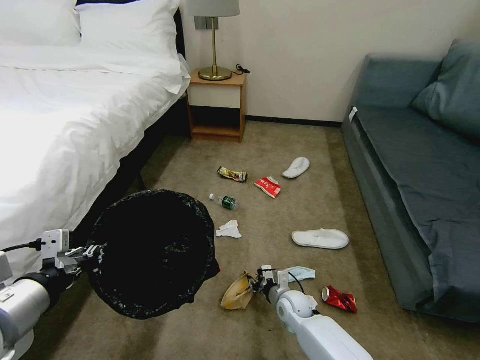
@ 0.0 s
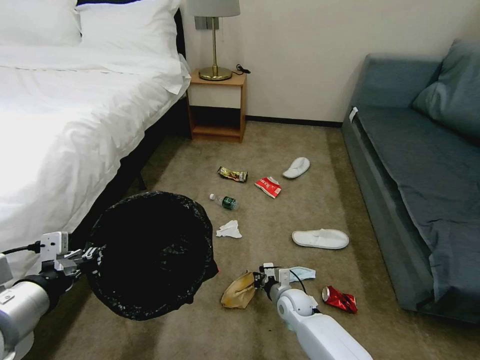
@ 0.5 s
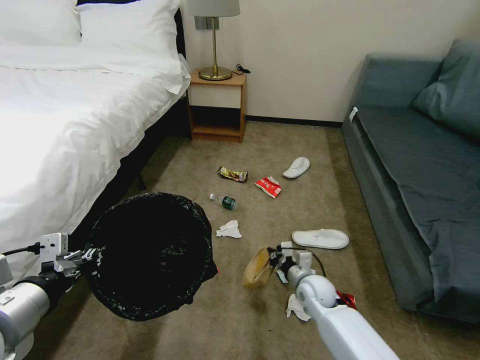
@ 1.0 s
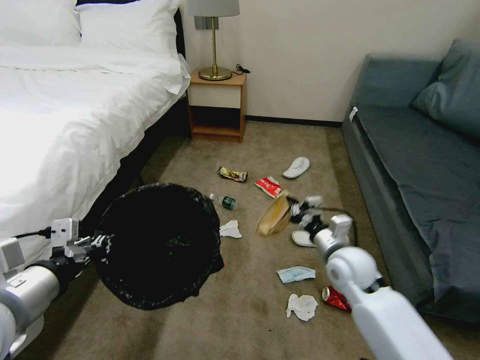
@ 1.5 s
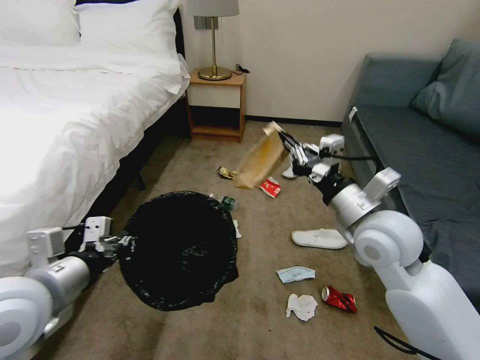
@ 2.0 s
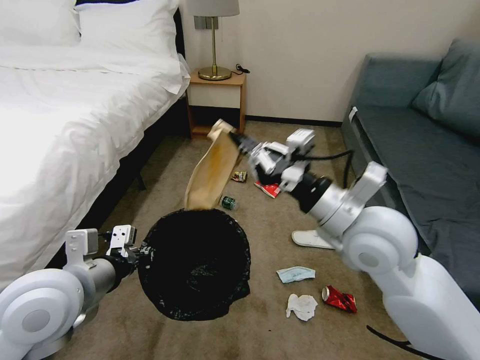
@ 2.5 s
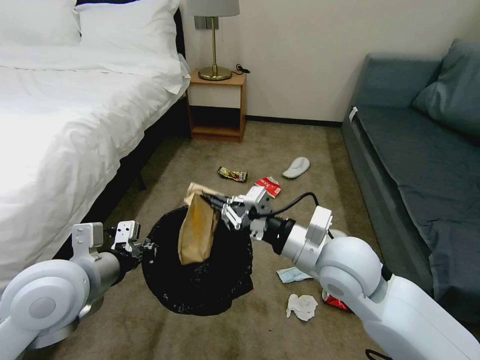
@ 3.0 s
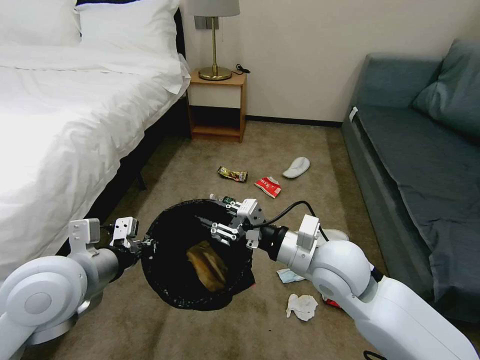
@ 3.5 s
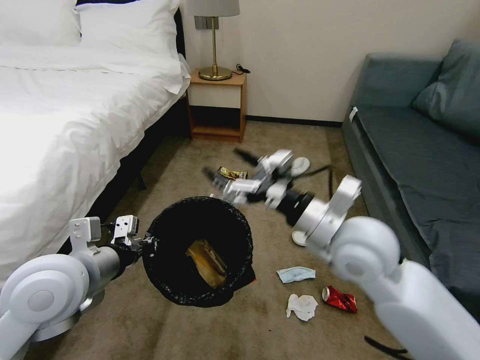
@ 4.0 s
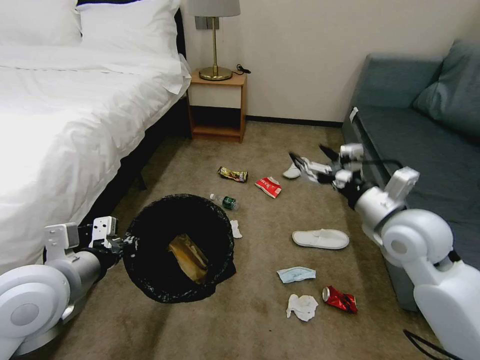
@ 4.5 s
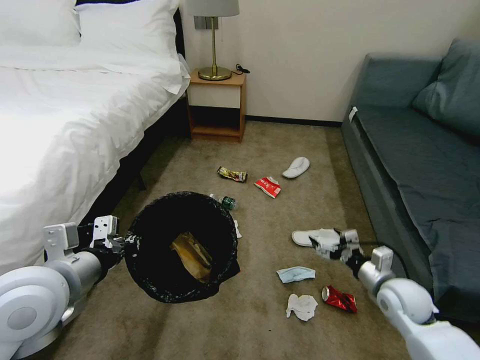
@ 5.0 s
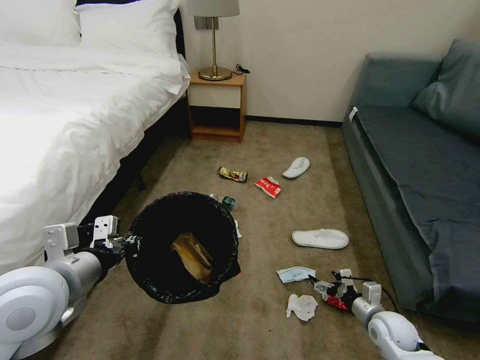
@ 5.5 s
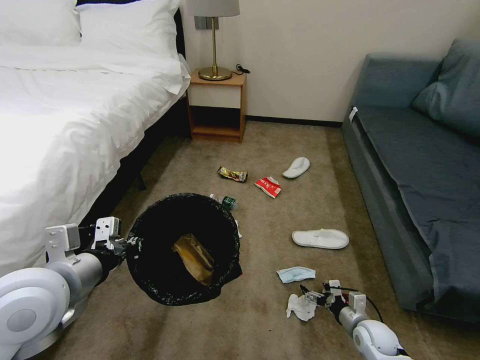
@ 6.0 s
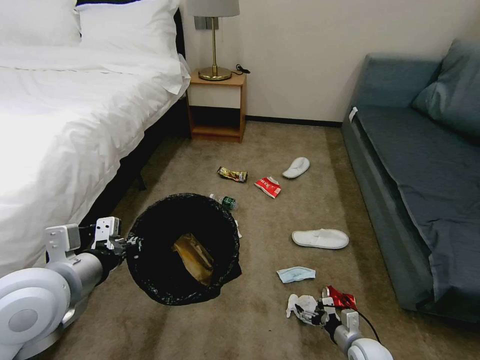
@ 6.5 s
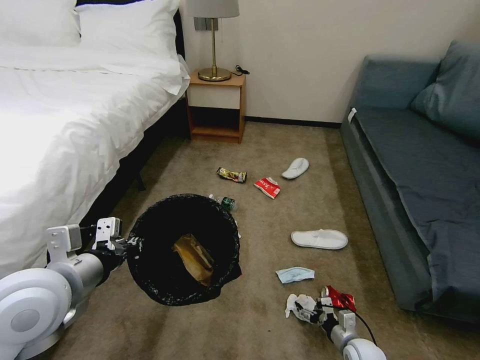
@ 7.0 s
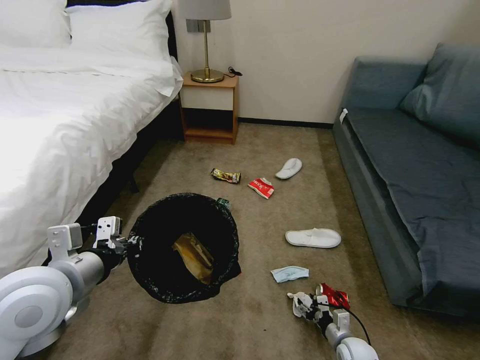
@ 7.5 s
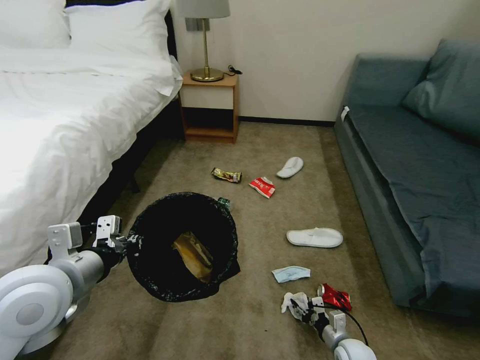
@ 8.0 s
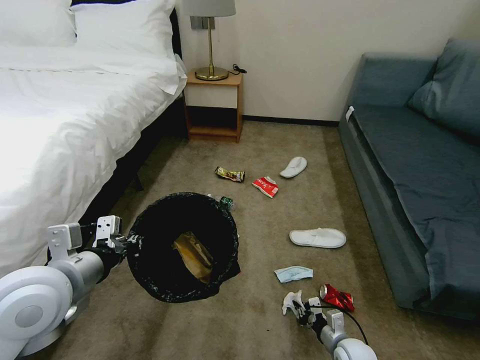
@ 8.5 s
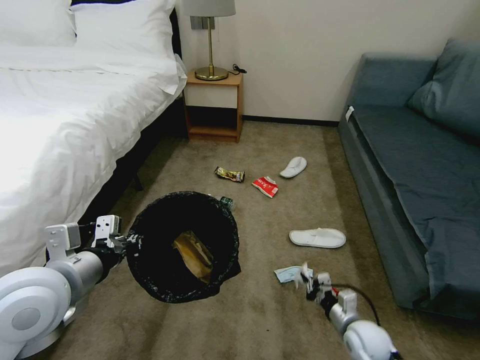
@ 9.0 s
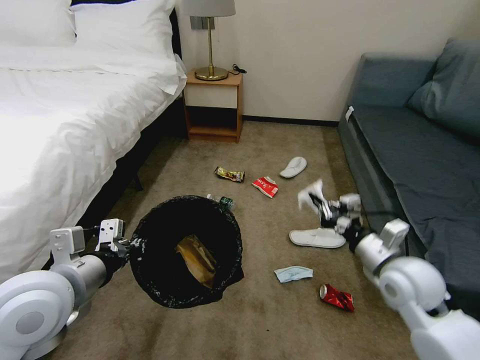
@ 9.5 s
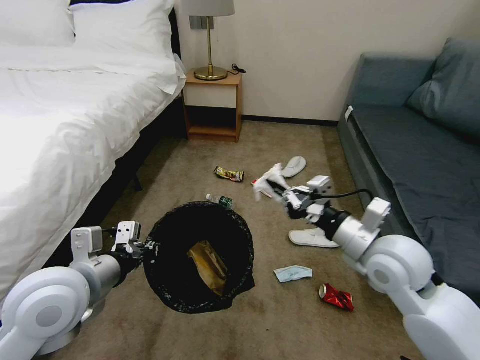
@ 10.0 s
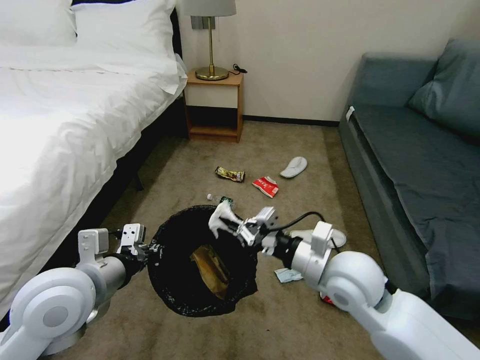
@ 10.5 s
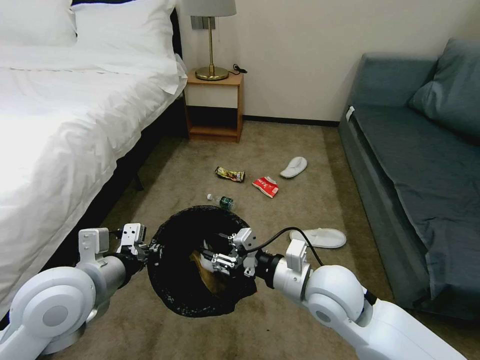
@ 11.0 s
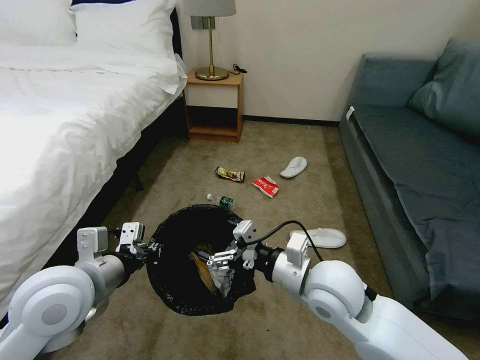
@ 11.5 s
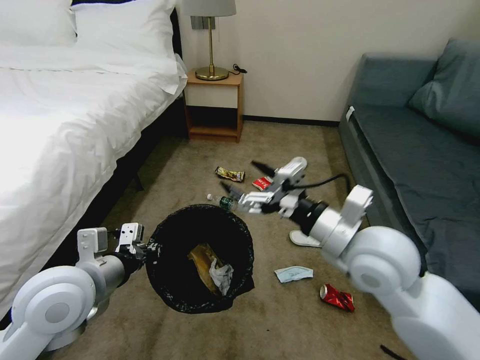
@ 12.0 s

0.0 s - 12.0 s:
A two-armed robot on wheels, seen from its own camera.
Task of the whole recording: Pick up the trash bin, then pick up the garbage on the floor and place it into the trash bin.
0.0 s - 2.0 s: The left gripper moves about 5 cm. Meanwhile the right gripper heads upward, covering roughly 35 cm.
2.0 s - 4.0 s: The right gripper moves up and down over approximately 10 cm, changing direction 2 times, and opens its fingers. The left gripper moves roughly 5 cm.
4.0 s - 6.0 s: The right gripper heads downward and to the right, covering some 40 cm.
6.0 s - 8.0 s: The right gripper shifts roughly 5 cm downward, and closes its fingers.
8.0 s - 10.0 s: The right gripper is displaced upward by approximately 40 cm, and closes.
10.0 s - 12.0 s: The right gripper shifts approximately 5 cm to the left and upward, and opens.

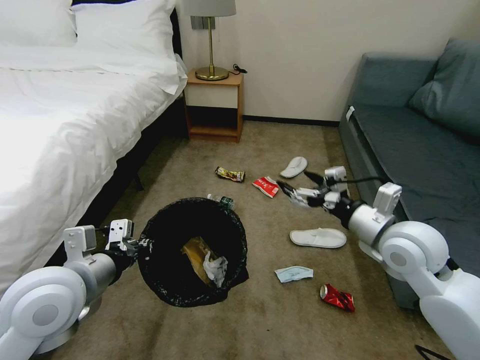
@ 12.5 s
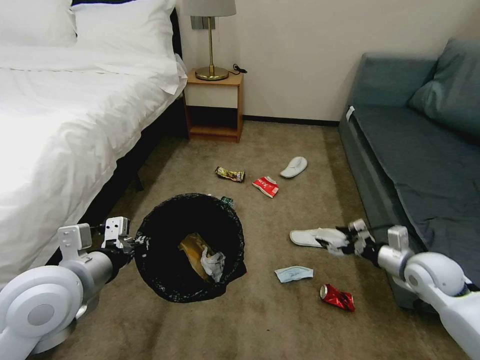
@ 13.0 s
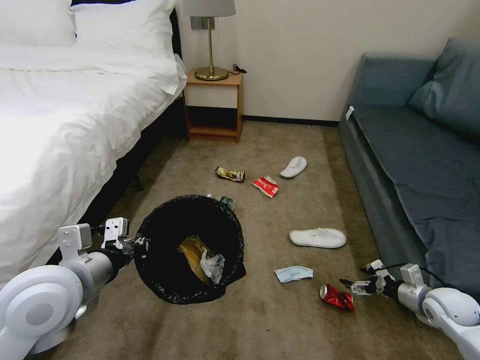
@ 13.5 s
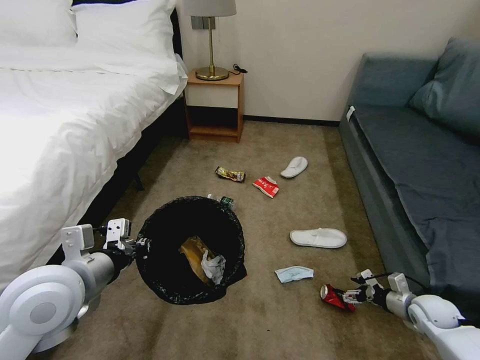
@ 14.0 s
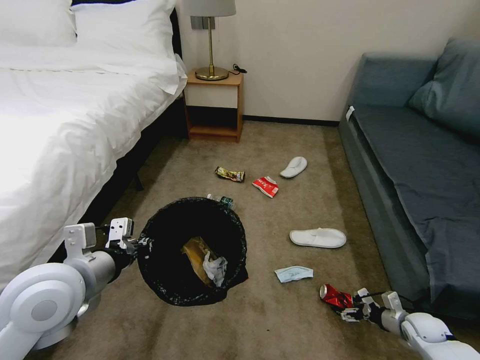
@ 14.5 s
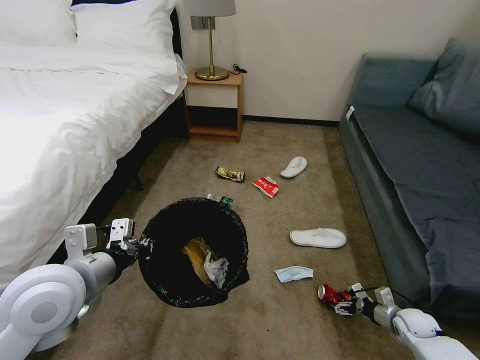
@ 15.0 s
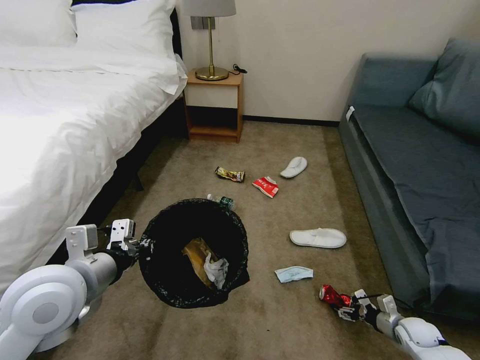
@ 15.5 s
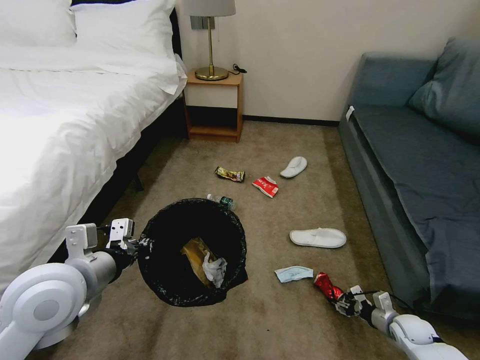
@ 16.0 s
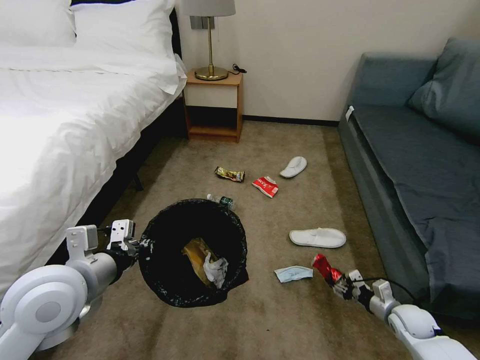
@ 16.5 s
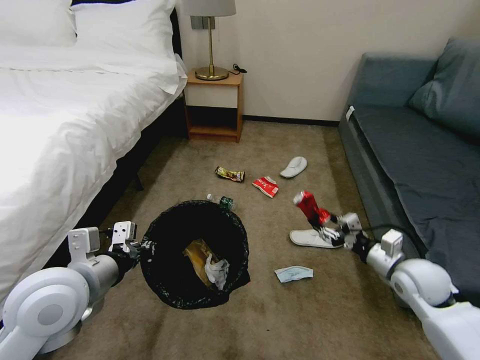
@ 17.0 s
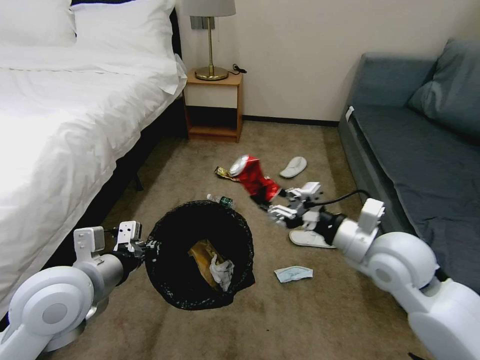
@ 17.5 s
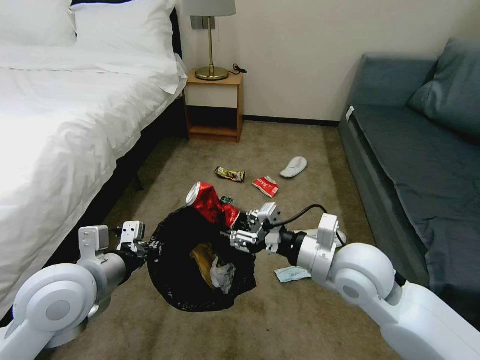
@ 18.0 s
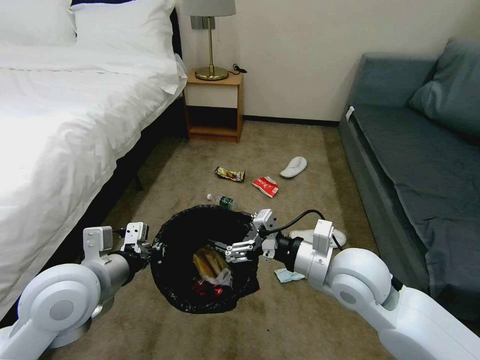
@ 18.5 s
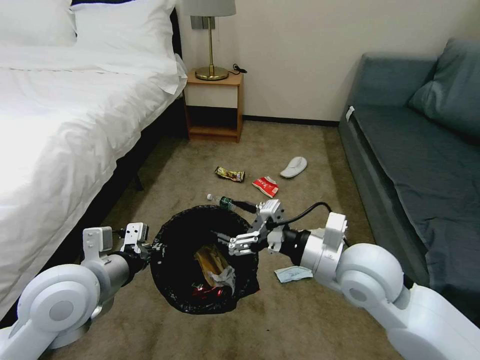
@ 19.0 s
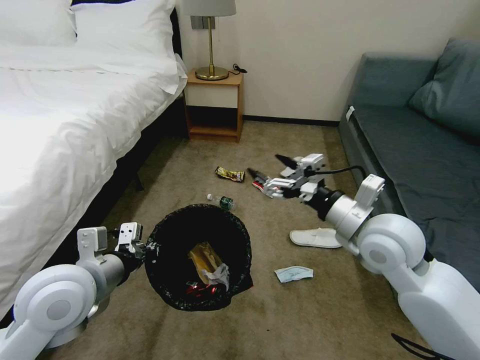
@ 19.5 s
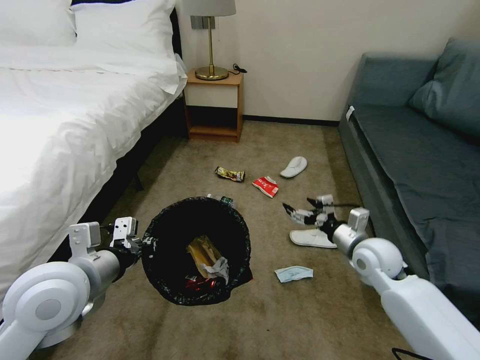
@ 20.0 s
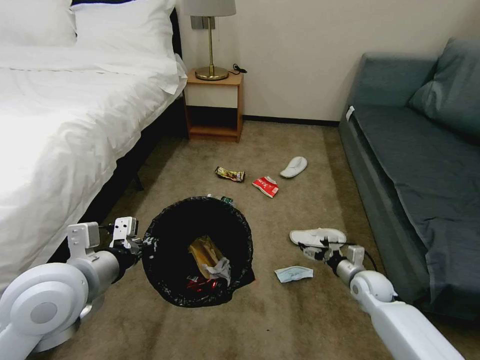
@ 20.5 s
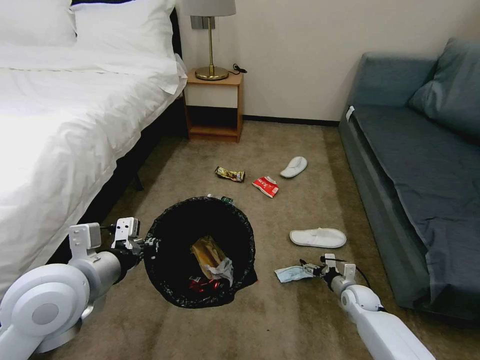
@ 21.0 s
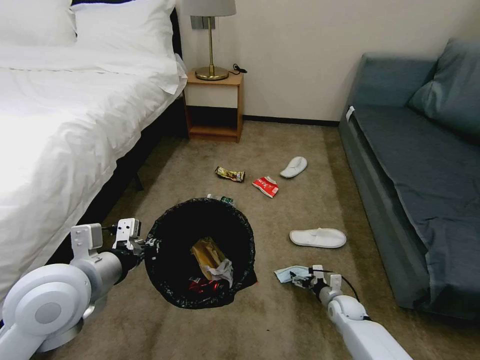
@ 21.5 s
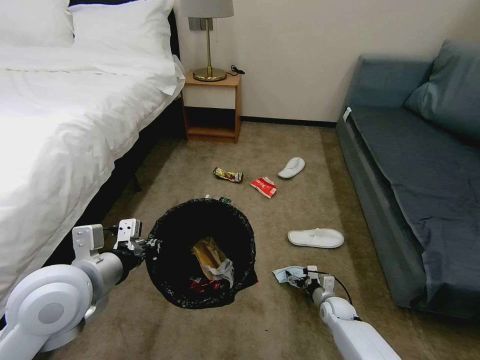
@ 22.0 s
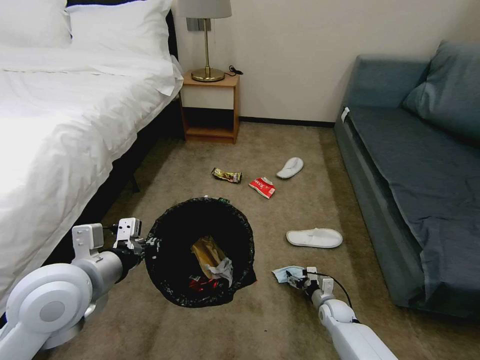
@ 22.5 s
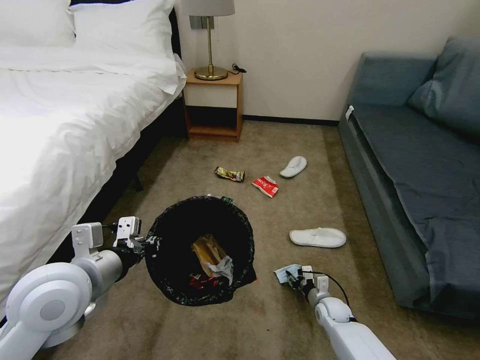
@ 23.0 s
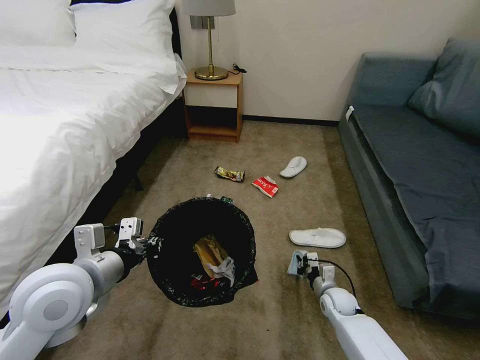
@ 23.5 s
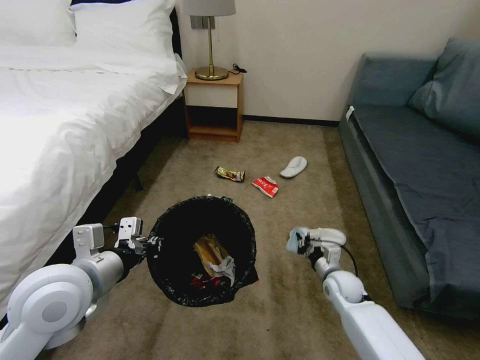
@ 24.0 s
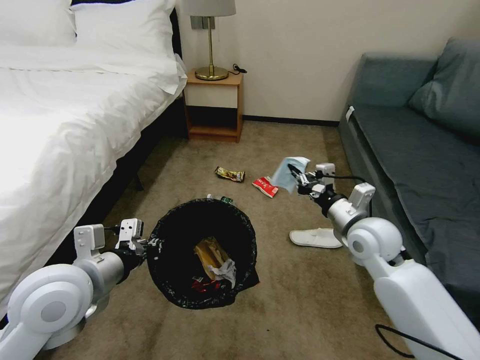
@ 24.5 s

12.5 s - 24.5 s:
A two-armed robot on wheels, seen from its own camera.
Task of the whole recording: Pick up the trash bin, then pick up the garbage on the floor and place it into the trash bin.
12.5 s - 14.5 s: The right gripper is displaced downward and to the right by some 40 cm.
14.5 s - 16.5 s: The right gripper goes about 5 cm to the left, and closes its fingers.
16.5 s - 18.5 s: The right gripper travels upward and to the left by roughly 40 cm, and opens.
18.5 s - 20.5 s: The right gripper shifts some 30 cm downward and to the right.
20.5 s - 22.5 s: The right gripper goes roughly 15 cm downward and to the left.
22.5 s - 24.5 s: The right gripper heads upward, covering about 35 cm, and closes.

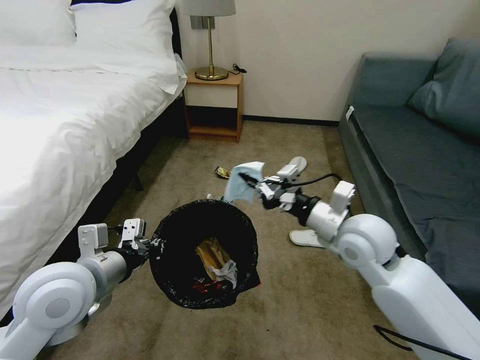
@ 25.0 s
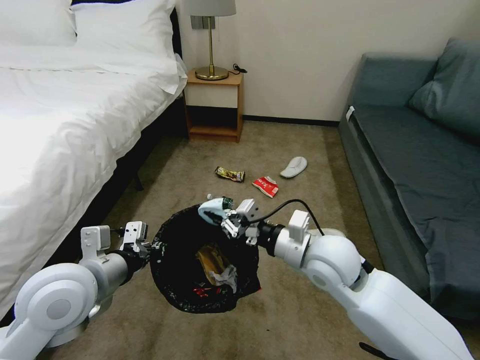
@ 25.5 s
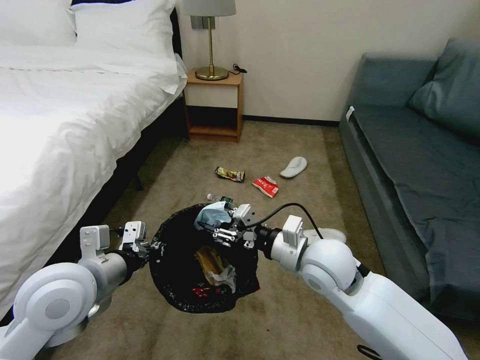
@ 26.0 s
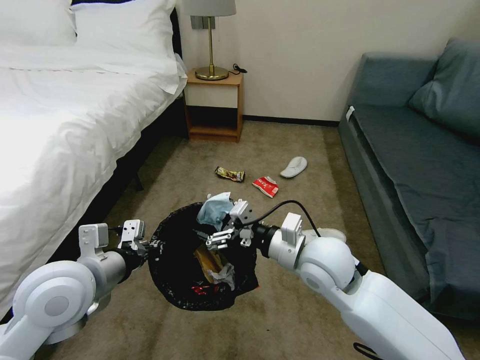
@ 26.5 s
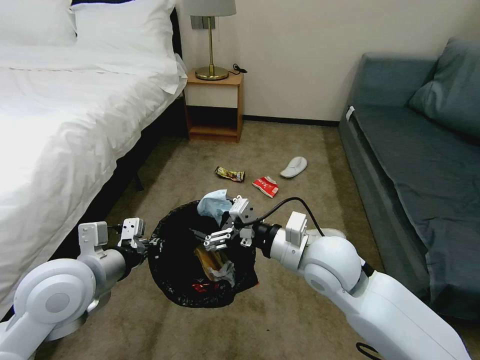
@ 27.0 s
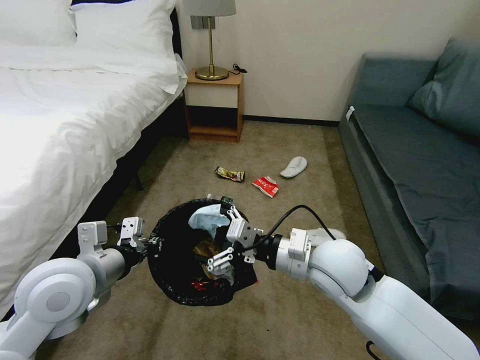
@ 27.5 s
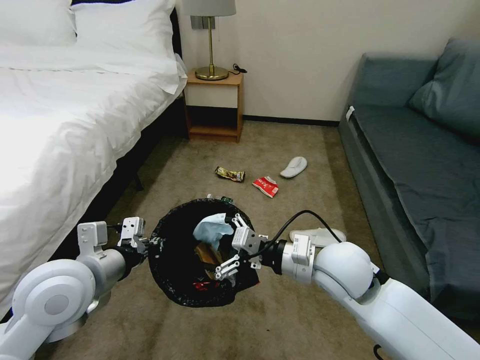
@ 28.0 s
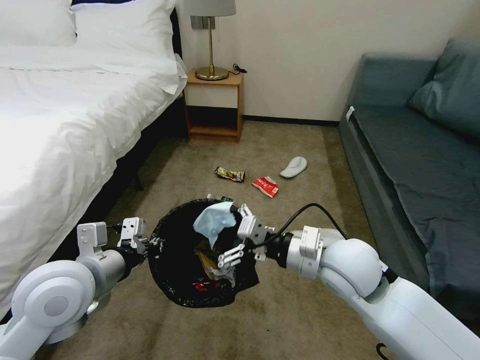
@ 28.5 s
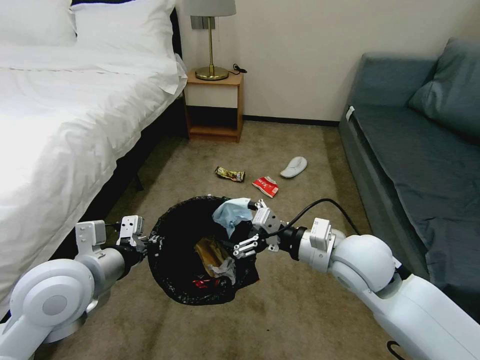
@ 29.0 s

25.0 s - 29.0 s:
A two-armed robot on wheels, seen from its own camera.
Task of the whole recording: Pick up the trash bin, then pick up the garbage on the floor and place it into the trash bin.
25.0 s - 27.0 s: The right gripper moves to the left, some 5 cm, and opens up.
27.0 s - 29.0 s: The grippers stay close to where they were, moving slightly.
